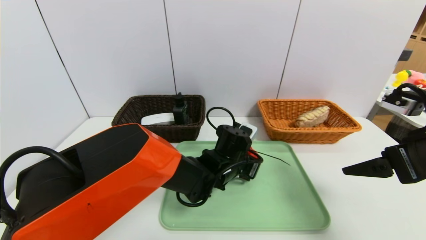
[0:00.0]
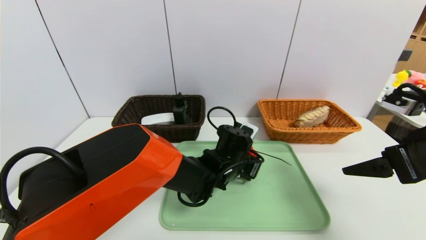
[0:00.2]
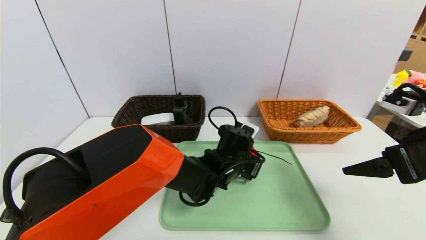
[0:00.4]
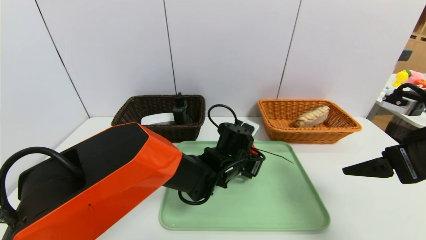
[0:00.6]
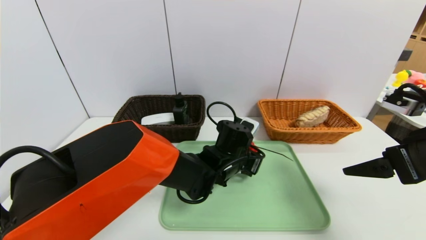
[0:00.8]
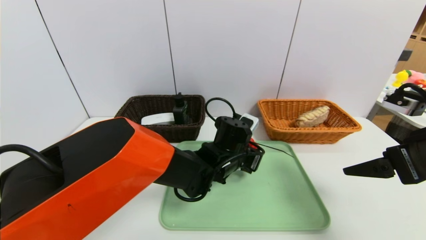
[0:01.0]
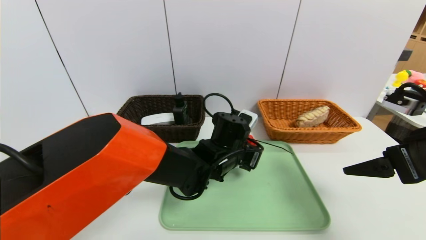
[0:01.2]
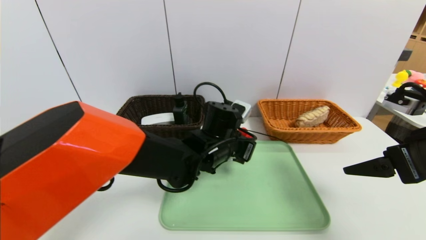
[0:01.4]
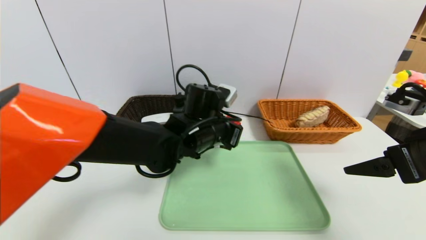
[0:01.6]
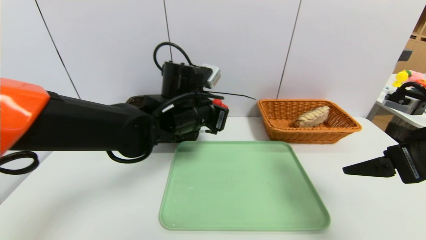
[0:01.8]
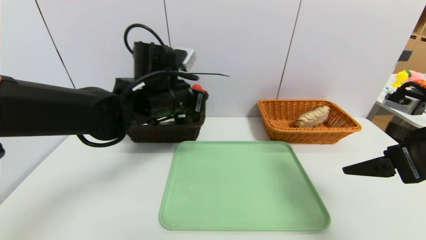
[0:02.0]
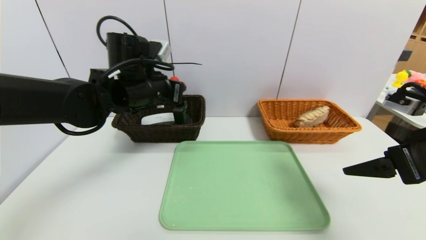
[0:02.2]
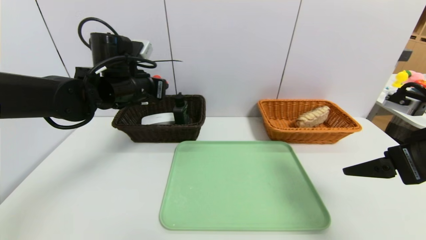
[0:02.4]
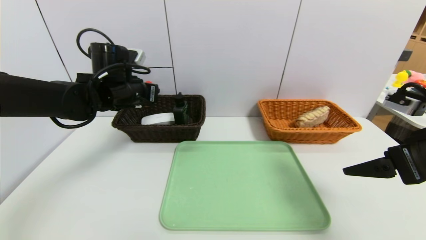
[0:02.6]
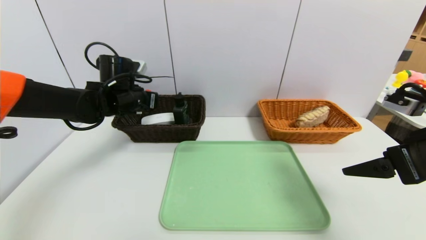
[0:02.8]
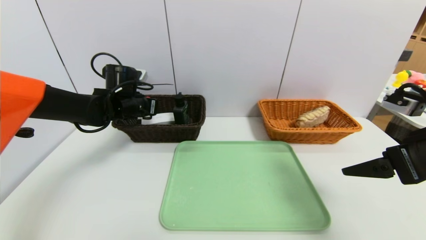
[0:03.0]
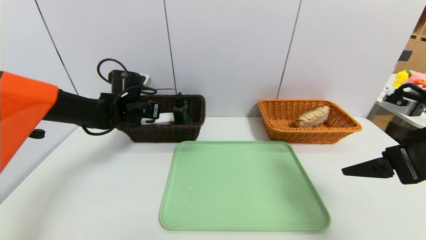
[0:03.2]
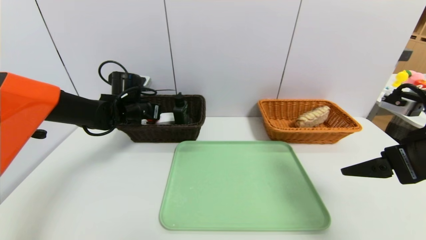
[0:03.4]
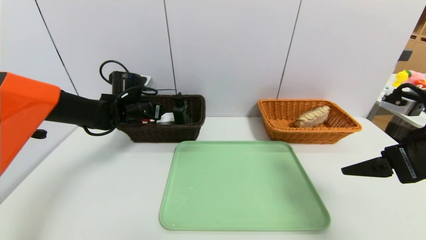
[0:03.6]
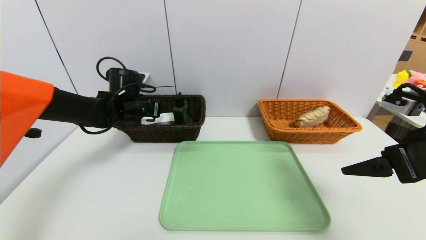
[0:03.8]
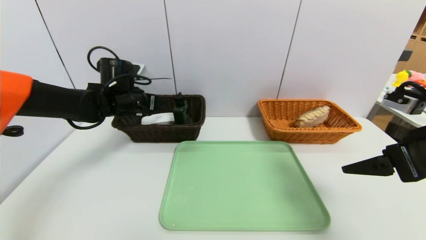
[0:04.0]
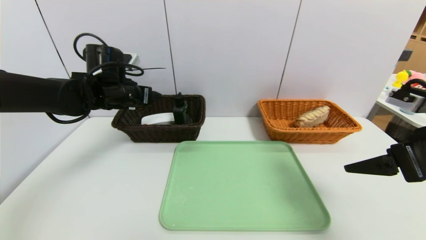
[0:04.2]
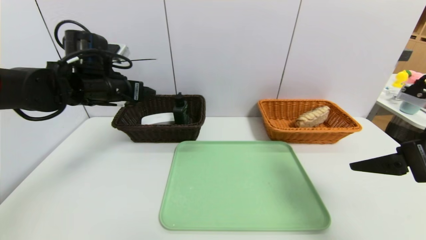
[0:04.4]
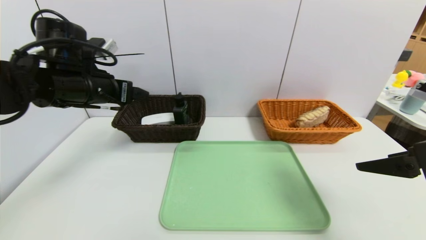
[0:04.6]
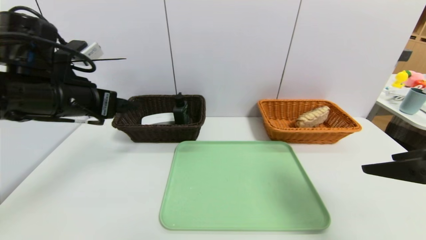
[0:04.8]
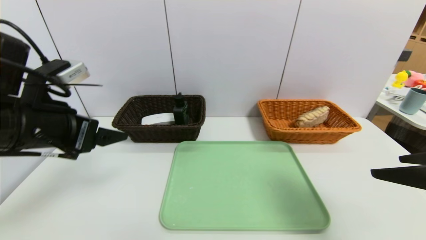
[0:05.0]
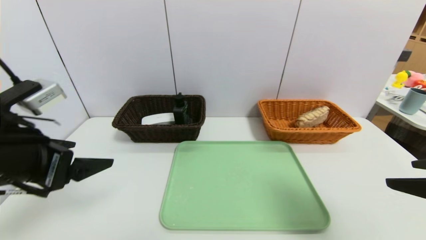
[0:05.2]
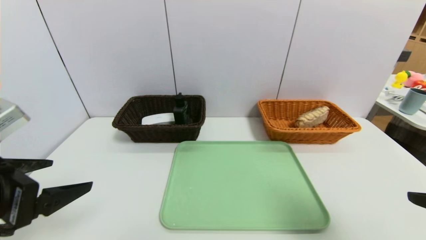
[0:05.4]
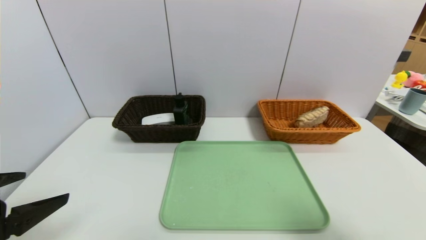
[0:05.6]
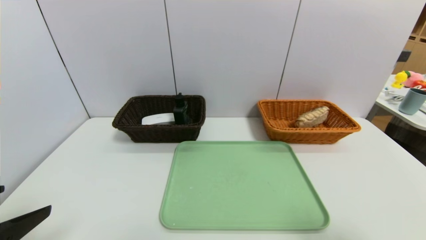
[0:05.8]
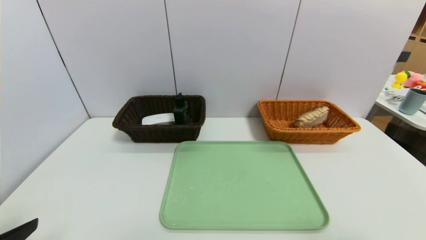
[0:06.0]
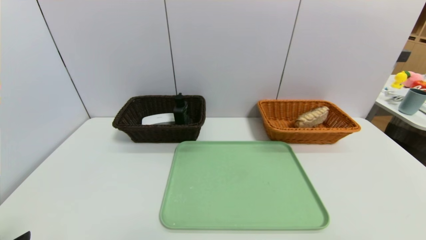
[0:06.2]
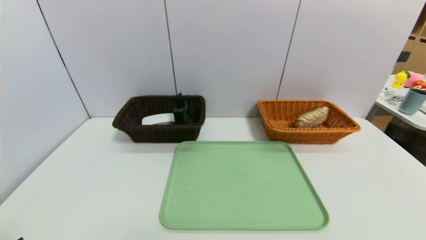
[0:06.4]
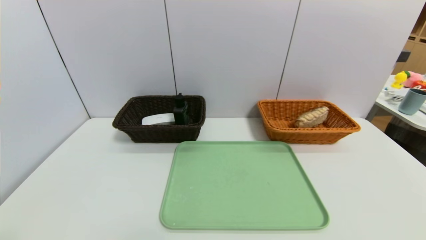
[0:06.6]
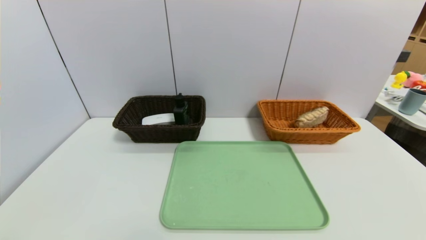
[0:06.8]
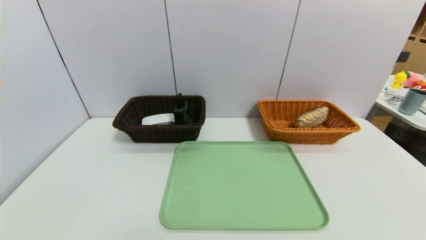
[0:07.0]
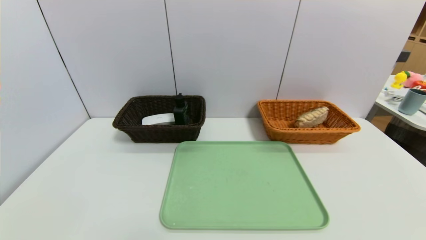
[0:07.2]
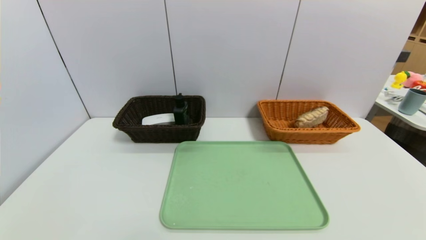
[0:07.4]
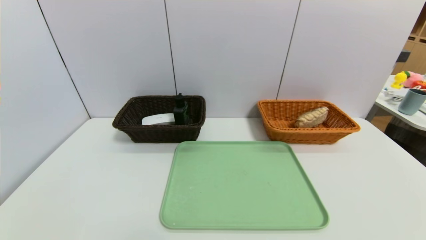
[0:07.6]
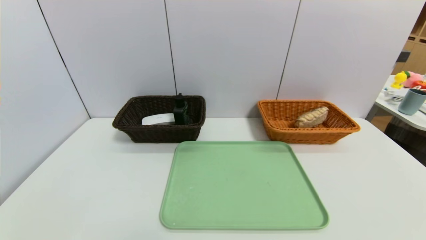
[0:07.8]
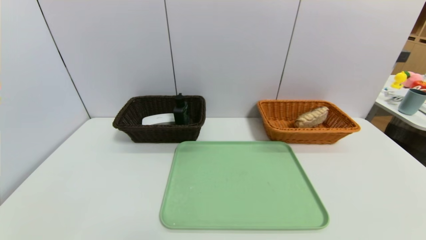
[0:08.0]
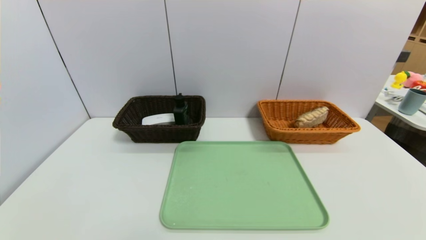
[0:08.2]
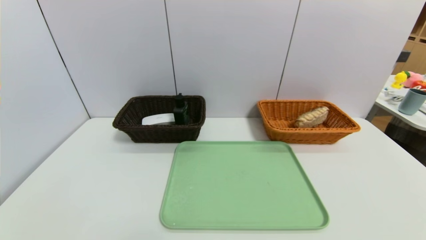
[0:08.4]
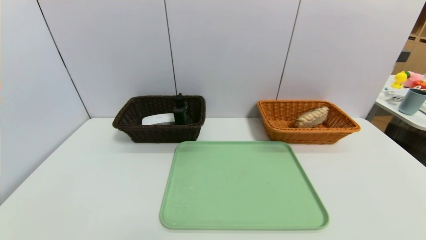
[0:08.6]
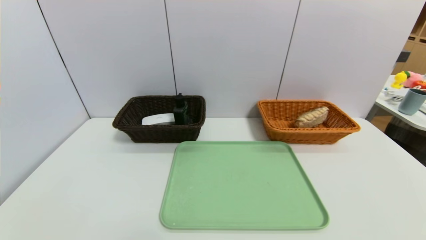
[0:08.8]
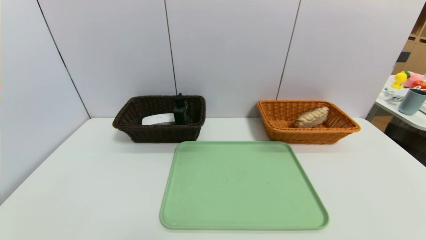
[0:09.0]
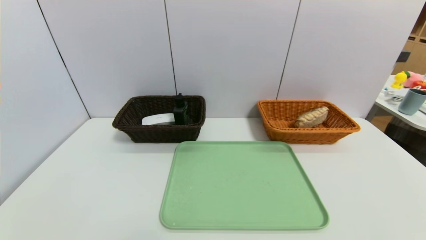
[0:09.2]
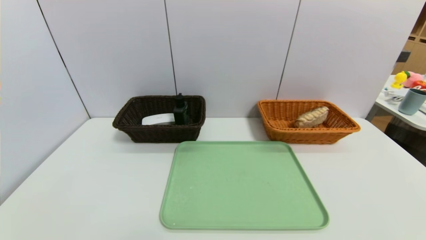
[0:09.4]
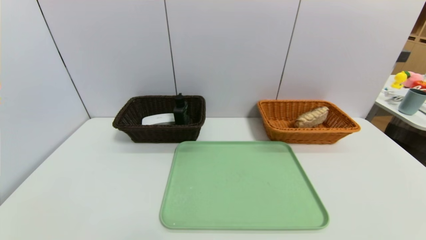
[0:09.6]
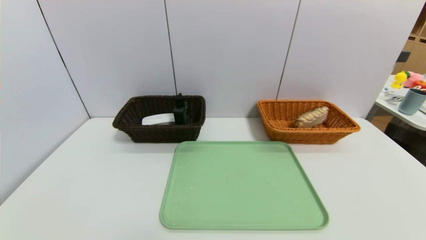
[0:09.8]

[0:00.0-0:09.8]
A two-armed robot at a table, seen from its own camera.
Task of the whole recording: place the food in the right basket with the right gripper, and place the non food items in the left basket with the left gripper.
Step, 0:00.0 to 0:04.6: Grasp the red duck and put it in the left basket.
0:00.0 to 0:01.4: The left gripper is displaced upward by some 5 cm.
0:01.4 to 0:02.8: The left gripper shifts some 25 cm to the left and forward.
0:02.8 to 0:04.2: The left gripper opens up.
0:04.2 to 0:05.6: The right gripper heads backward, covering some 15 cm. The left gripper shifts about 30 cm backward.
0:05.6 to 0:07.0: The two grippers go approximately 15 cm backward and downward.
